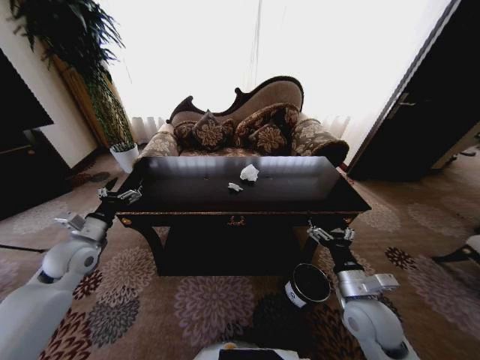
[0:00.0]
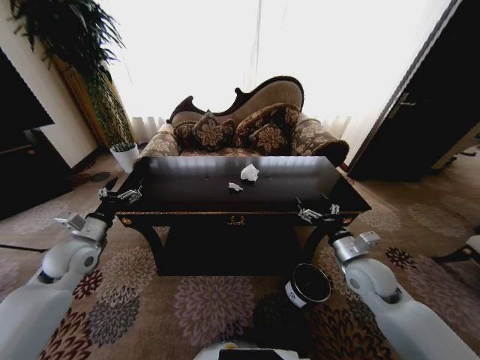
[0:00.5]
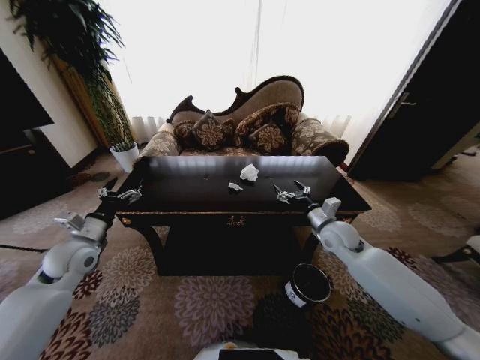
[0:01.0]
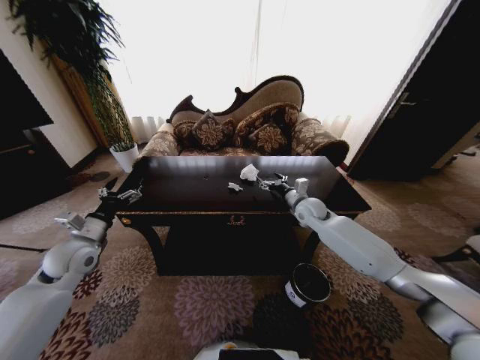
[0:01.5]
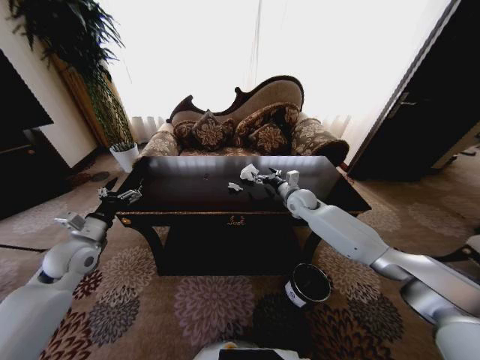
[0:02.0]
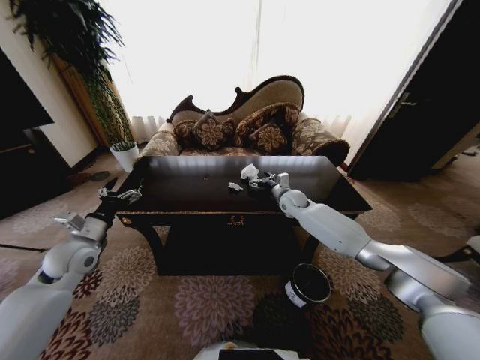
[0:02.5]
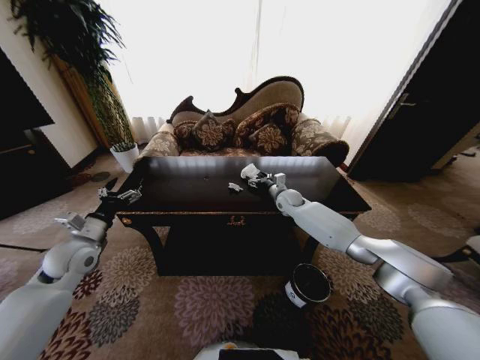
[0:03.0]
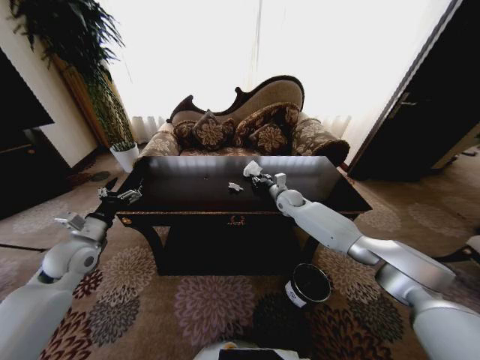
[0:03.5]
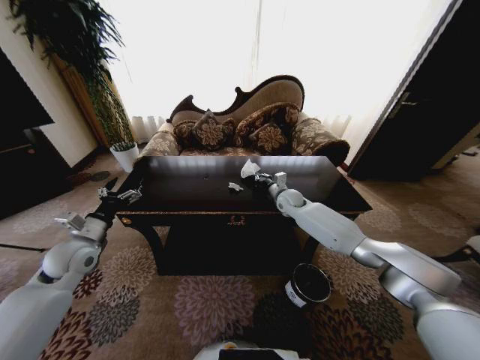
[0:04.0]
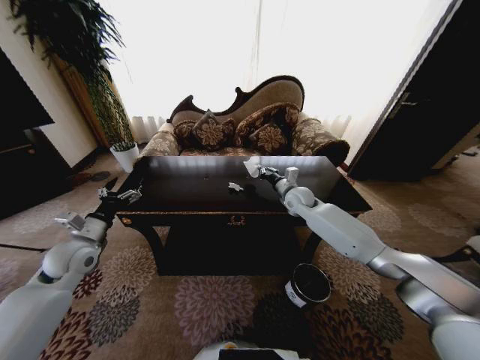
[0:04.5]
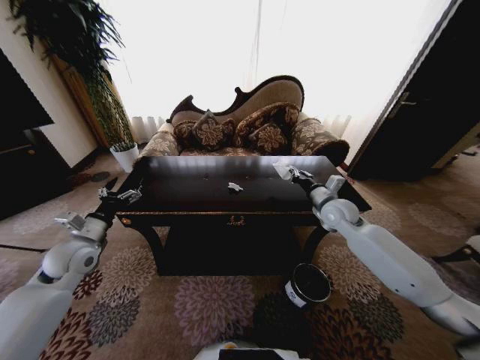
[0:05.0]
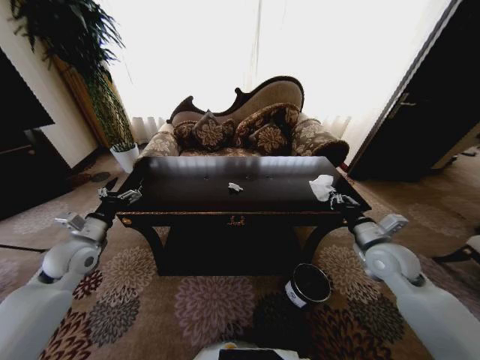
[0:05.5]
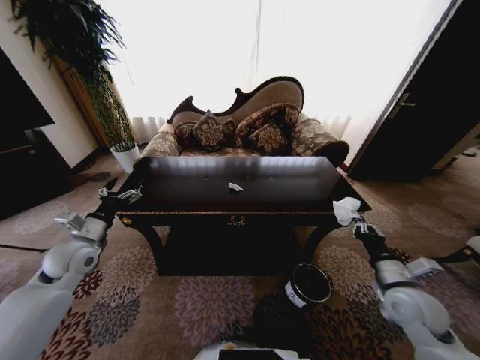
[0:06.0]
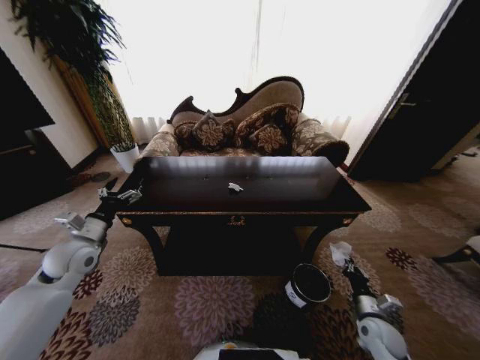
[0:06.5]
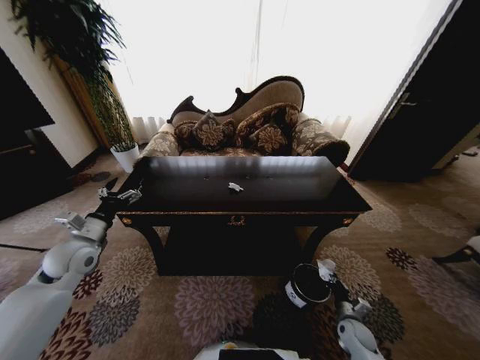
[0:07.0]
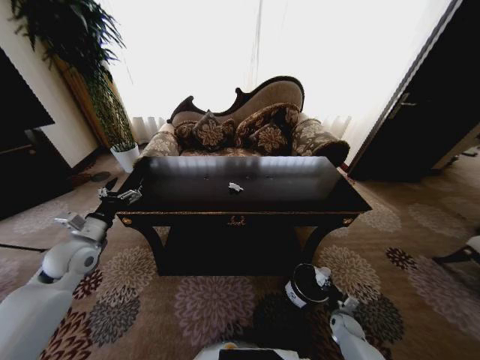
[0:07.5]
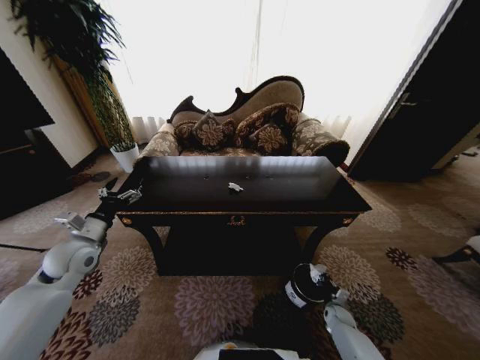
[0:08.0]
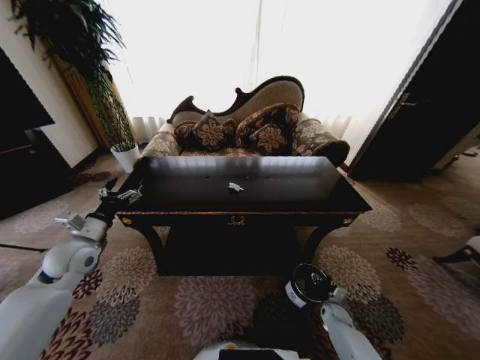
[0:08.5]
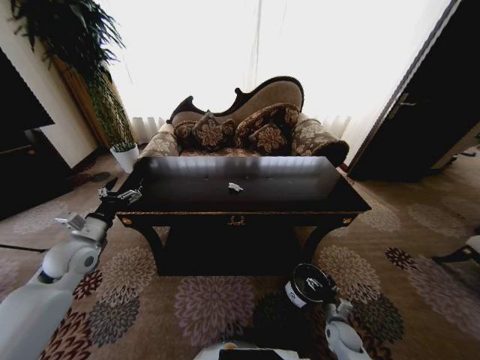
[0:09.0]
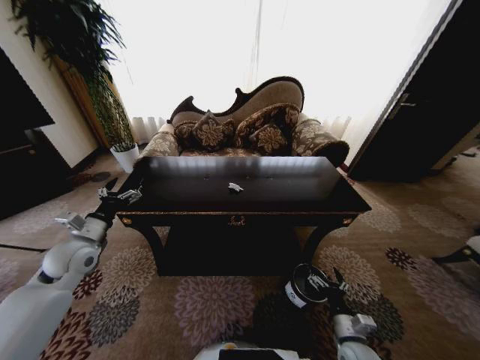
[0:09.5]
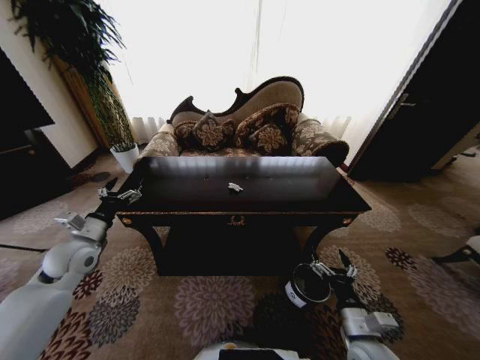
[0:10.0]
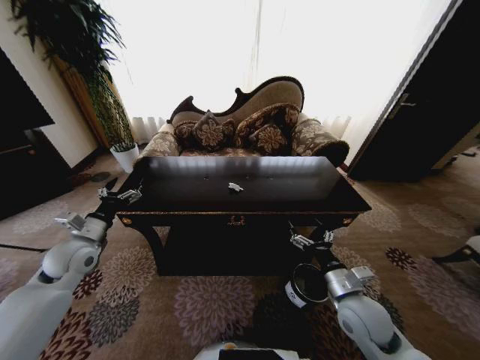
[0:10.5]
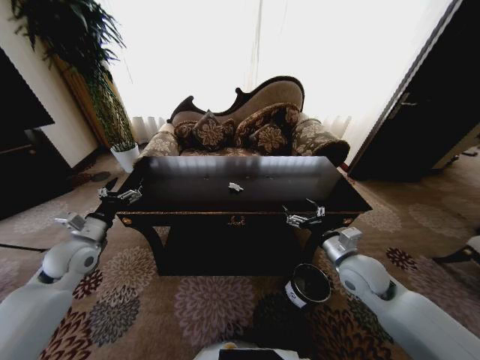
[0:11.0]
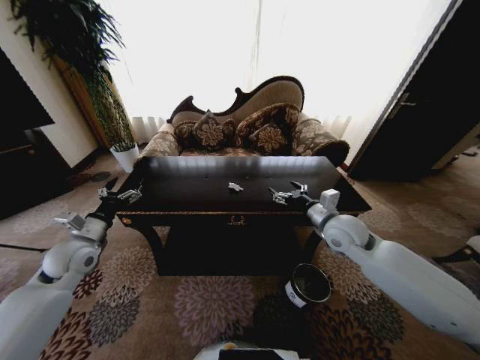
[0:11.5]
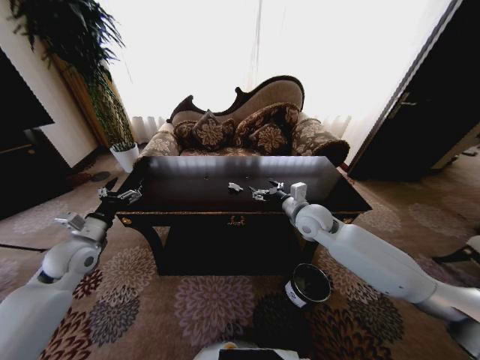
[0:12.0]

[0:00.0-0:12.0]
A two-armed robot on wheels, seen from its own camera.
Task of the whole recording: Move to the front of the table and place the trash on the table into the trash bin.
0:00.0 to 0:02.0: The right gripper goes some 35 cm forward.
0:02.0 to 0:04.0: The right gripper closes its fingers.
0:04.0 to 0:06.0: The right gripper moves backward and to the right, approximately 40 cm.
0:06.0 to 0:08.0: The right gripper travels downward by approximately 35 cm.
0:08.0 to 0:10.0: The right gripper heads upward, backward and to the left, covering some 30 cm, and opens its fingers.
0:10.0 to 0:12.0: The right gripper heads forward and upward, covering approximately 35 cm.

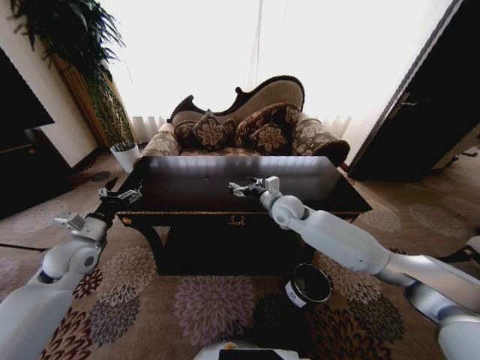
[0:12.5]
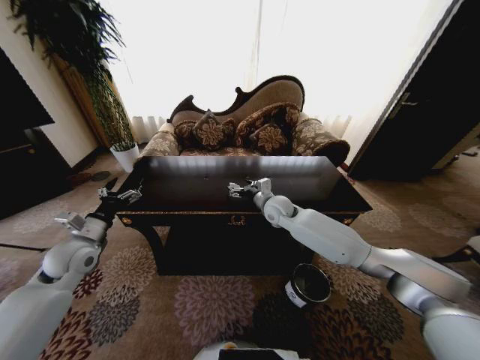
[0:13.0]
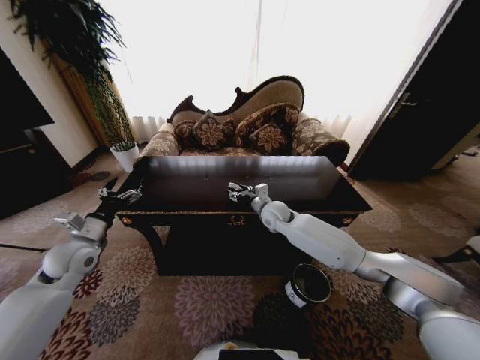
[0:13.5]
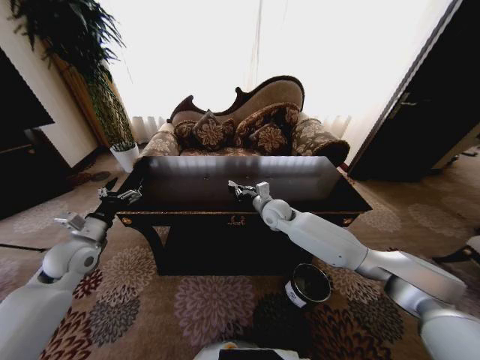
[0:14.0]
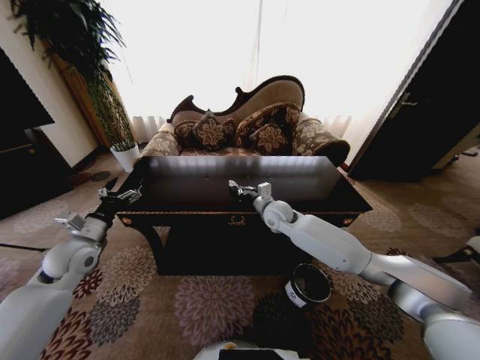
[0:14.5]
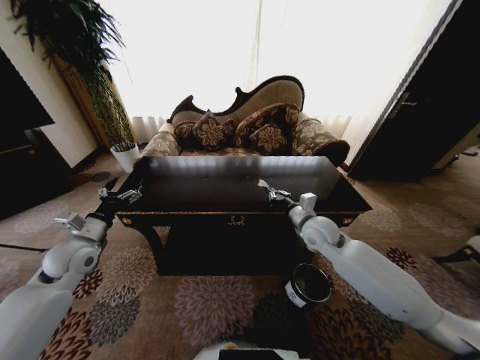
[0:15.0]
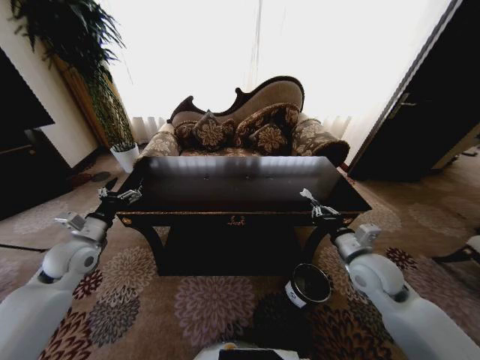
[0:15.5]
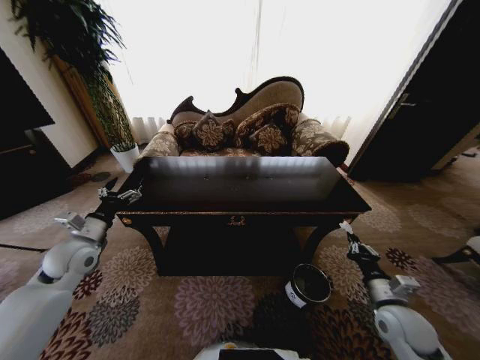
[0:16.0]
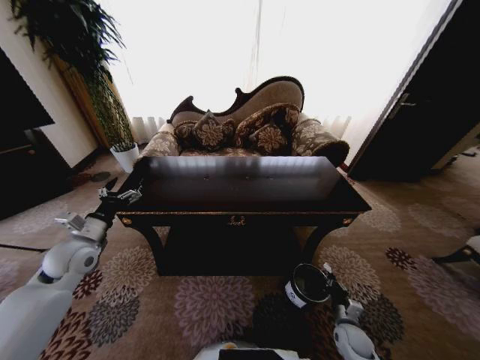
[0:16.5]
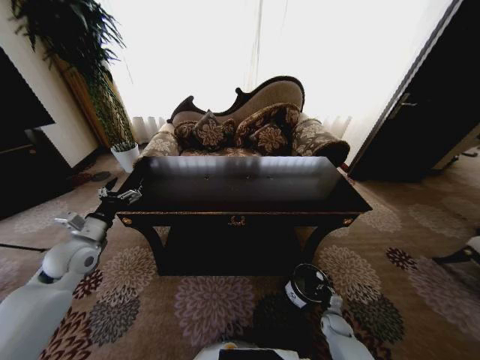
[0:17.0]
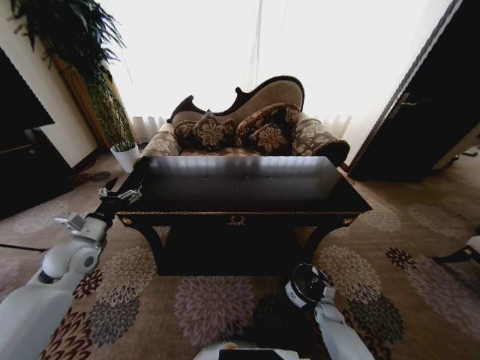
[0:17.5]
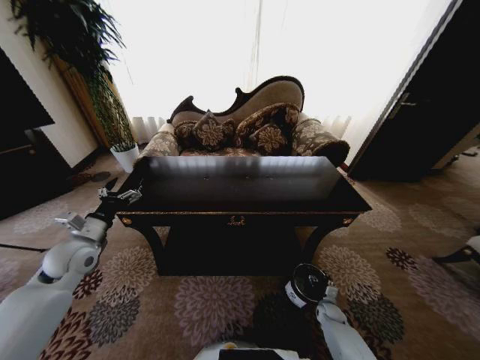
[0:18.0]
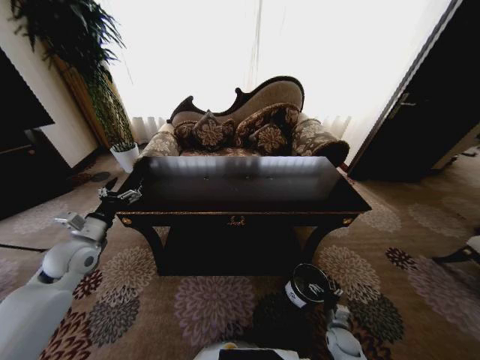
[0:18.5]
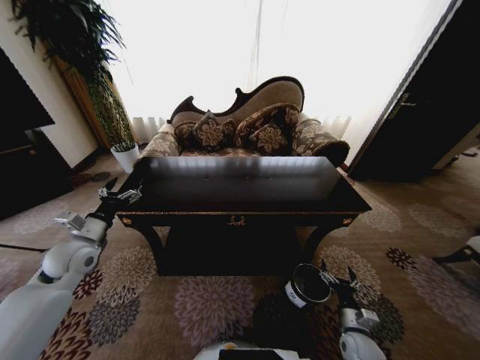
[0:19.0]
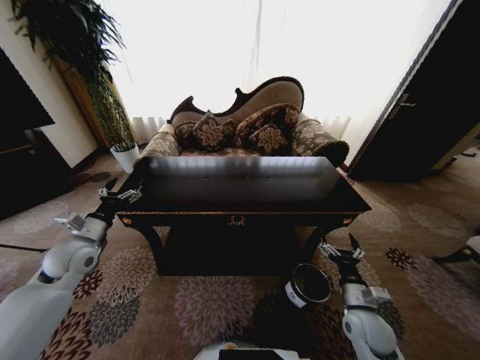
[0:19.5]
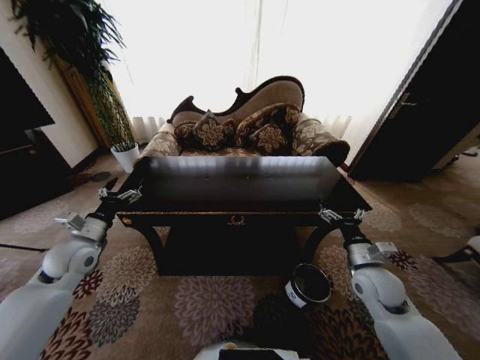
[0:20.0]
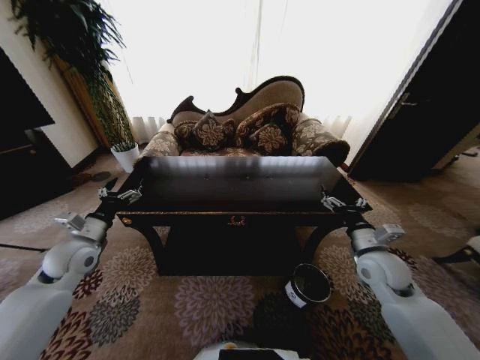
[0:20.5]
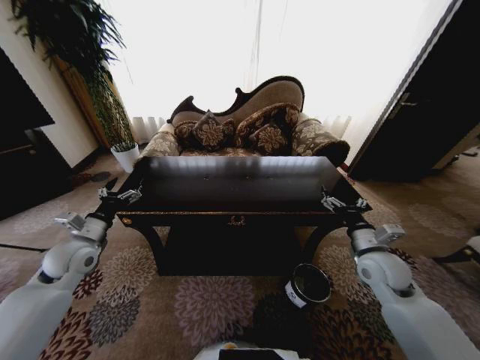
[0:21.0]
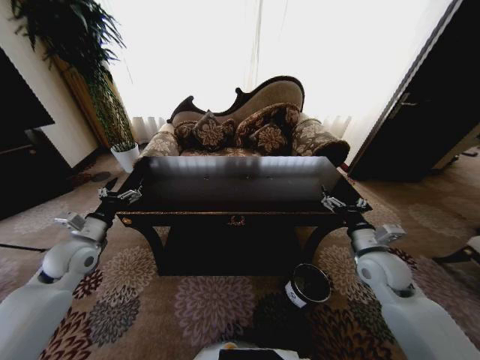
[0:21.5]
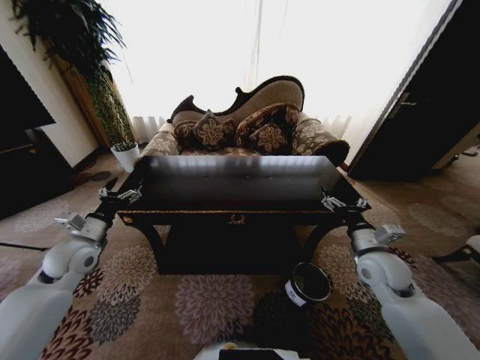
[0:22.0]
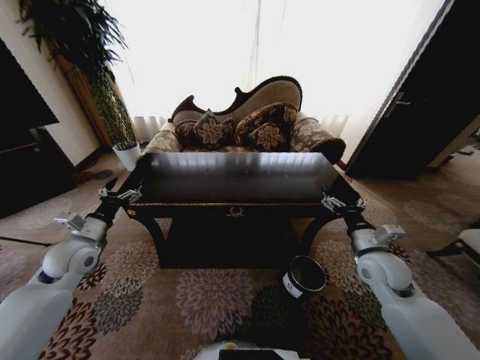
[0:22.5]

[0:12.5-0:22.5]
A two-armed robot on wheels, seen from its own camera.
Task of the whole recording: Move to the front of the table and place the trash on the table into the trash bin.
0:12.5 to 0:14.5: The right gripper closes its fingers.
0:14.5 to 0:16.5: The right gripper goes approximately 50 cm backward, downward and to the right.
0:16.5 to 0:18.5: The right gripper shifts about 10 cm downward, and opens up.
0:18.5 to 0:20.5: The right gripper heads upward, covering some 35 cm.
0:20.5 to 0:22.5: Neither gripper changes place.
